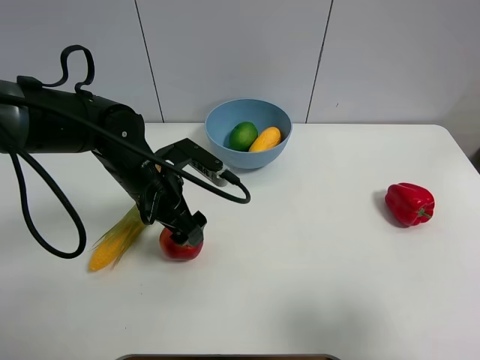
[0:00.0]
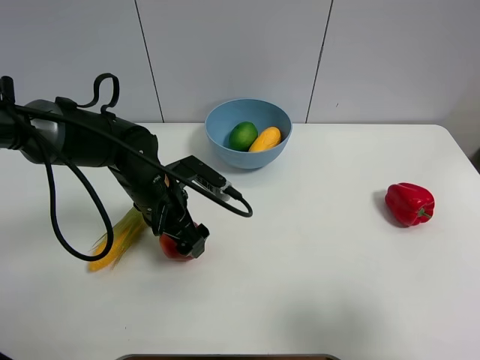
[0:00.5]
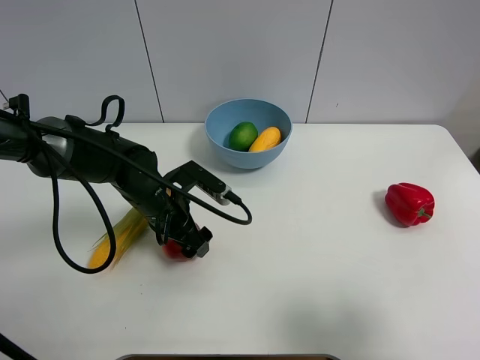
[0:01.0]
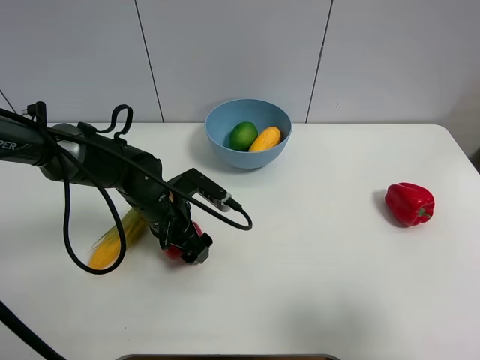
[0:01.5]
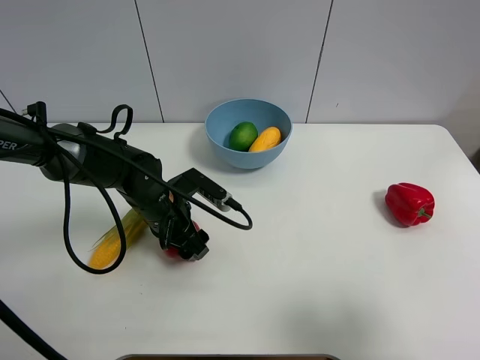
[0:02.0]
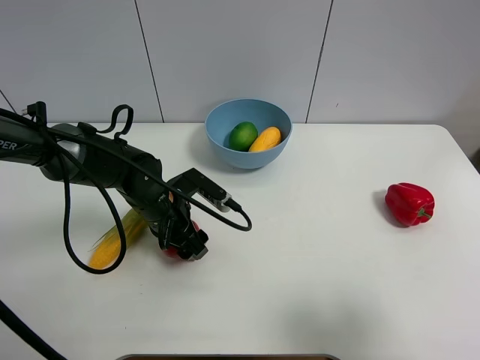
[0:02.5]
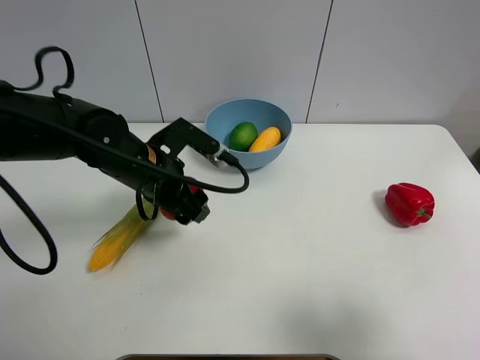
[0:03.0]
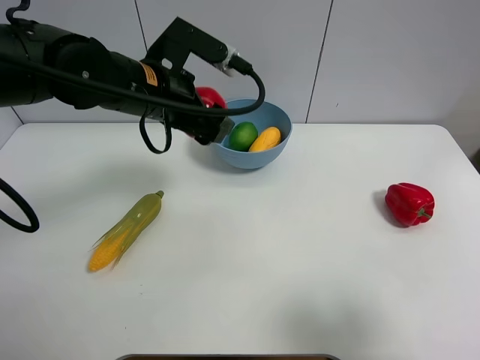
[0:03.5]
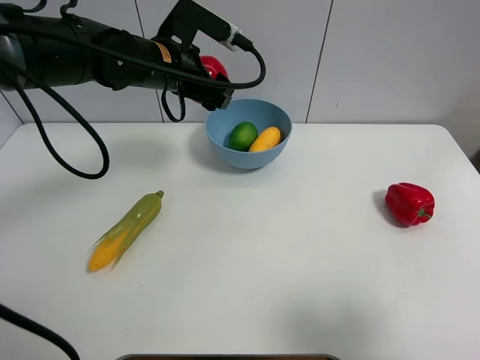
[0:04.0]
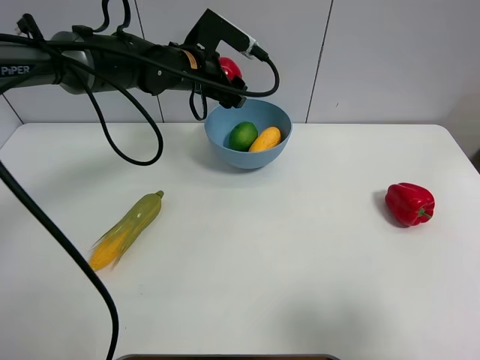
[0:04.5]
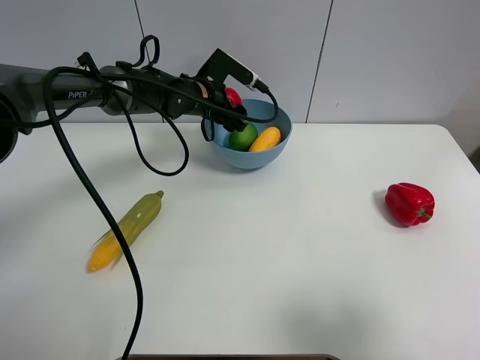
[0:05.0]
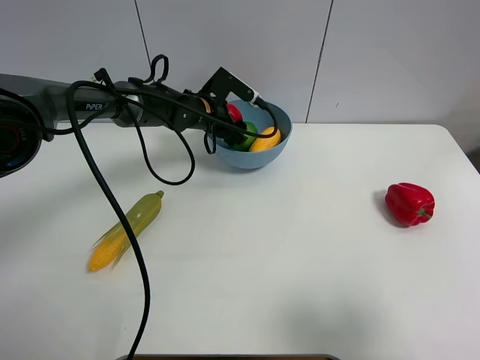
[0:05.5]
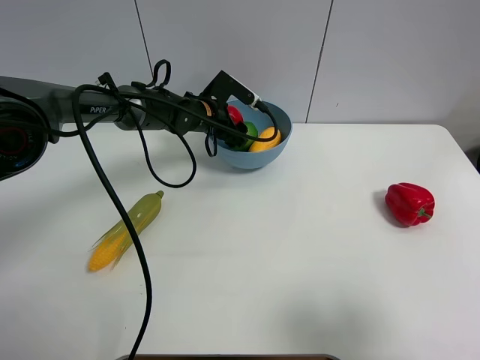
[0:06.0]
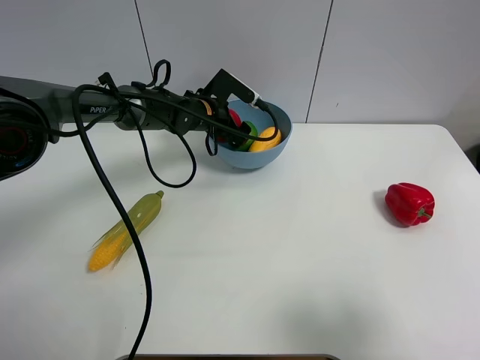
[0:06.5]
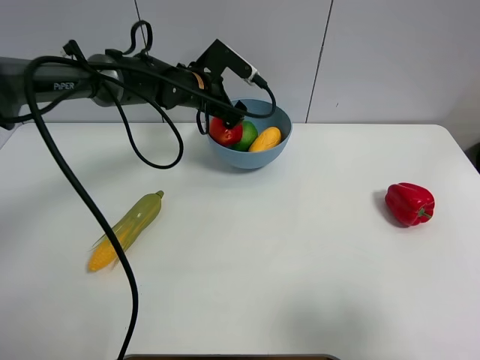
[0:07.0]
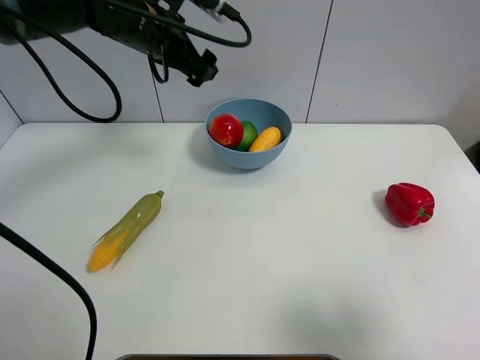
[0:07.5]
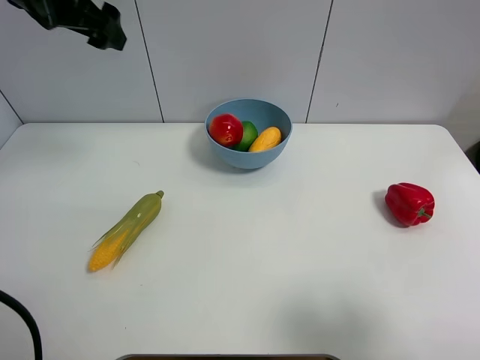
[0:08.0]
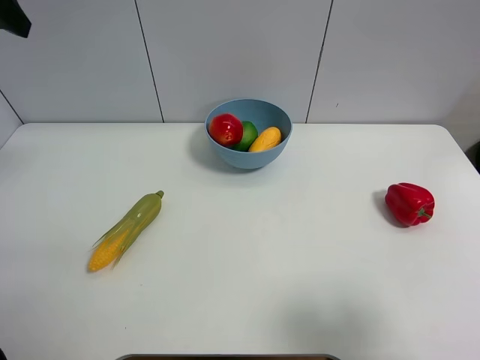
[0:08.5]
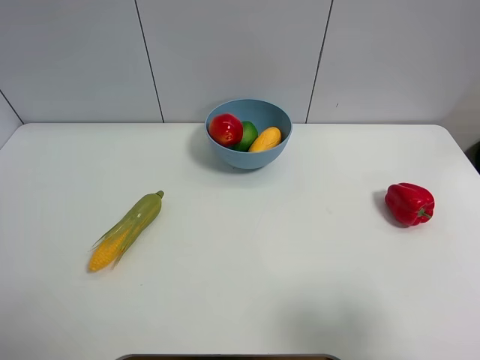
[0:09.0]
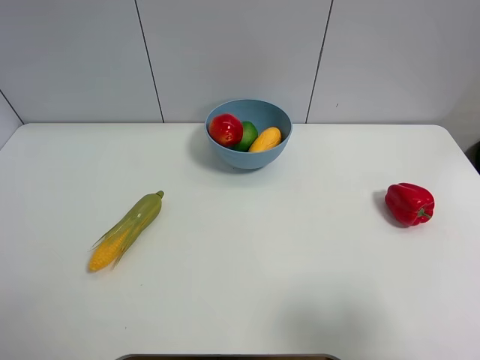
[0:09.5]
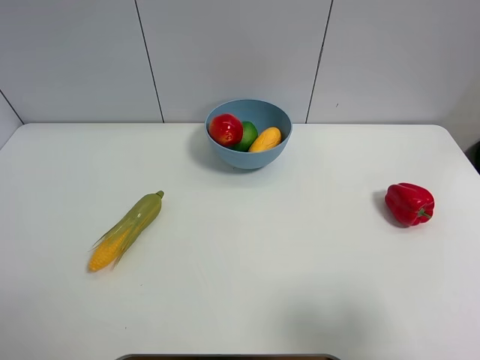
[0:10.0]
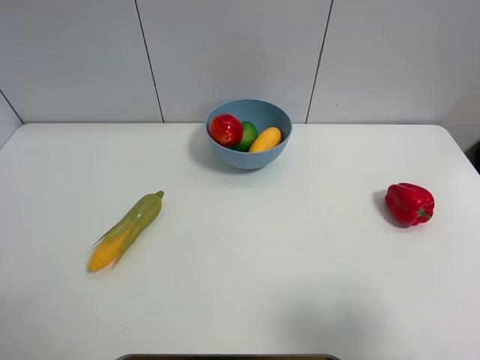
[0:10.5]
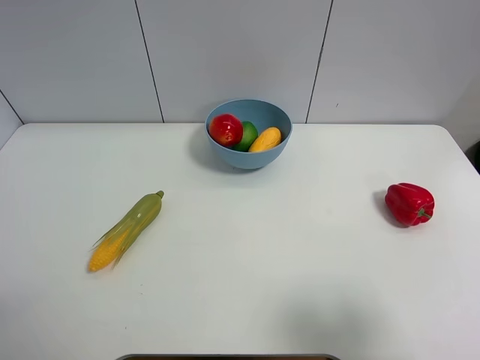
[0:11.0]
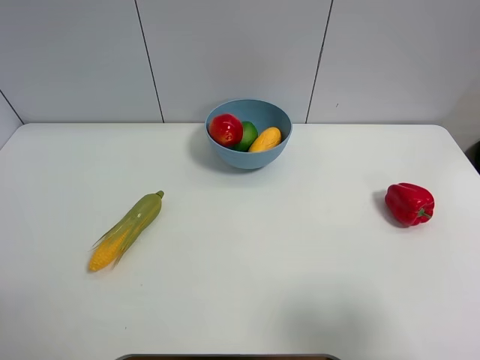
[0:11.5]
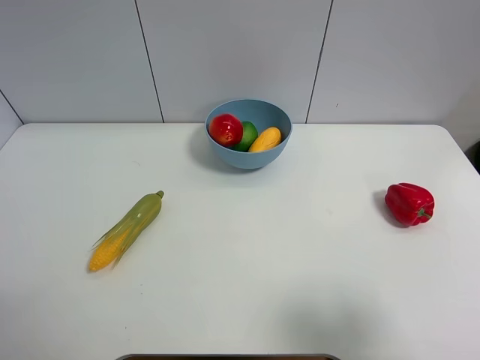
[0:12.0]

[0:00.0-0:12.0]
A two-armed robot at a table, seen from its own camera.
Task of the whole recording: Put the three fruits on the table into a bowl.
Step, 0:02.0 to 0:06.5: Place the pomegranate in the blue bowl with left gripper.
0:00.0 to 0:02.0: The left gripper shifts roughly 5 cm downward, and closes up.
0:02.0 to 0:04.0: The left gripper is displaced upward and forward by about 20 cm.
0:04.0 to 0:06.0: The left gripper shifts some 15 cm downward and forward.
0:06.0 to 0:08.0: The left gripper is displaced upward and to the left by some 30 cm, and opens.
0:08.0 to 0:10.0: The left gripper is displaced backward by approximately 35 cm.

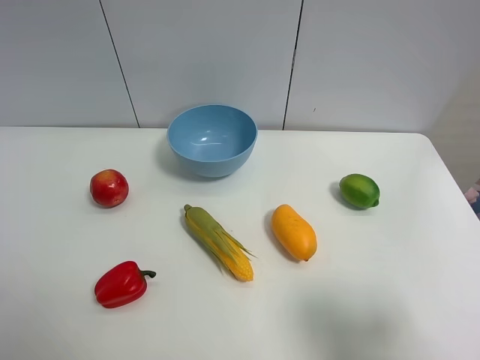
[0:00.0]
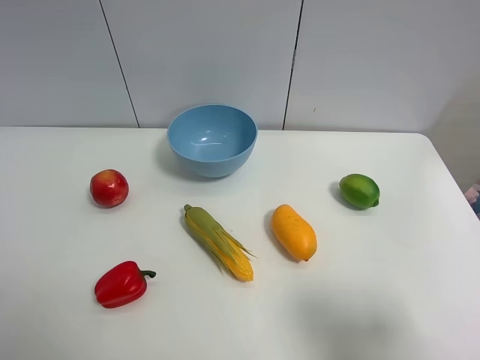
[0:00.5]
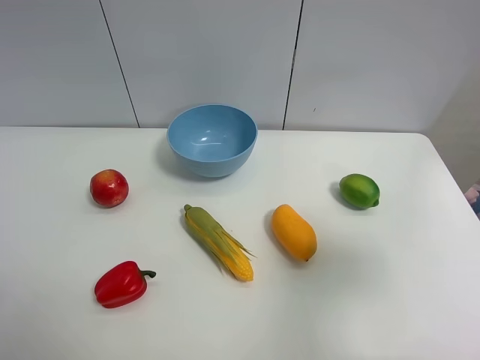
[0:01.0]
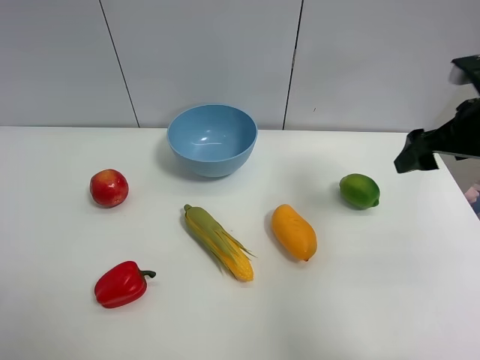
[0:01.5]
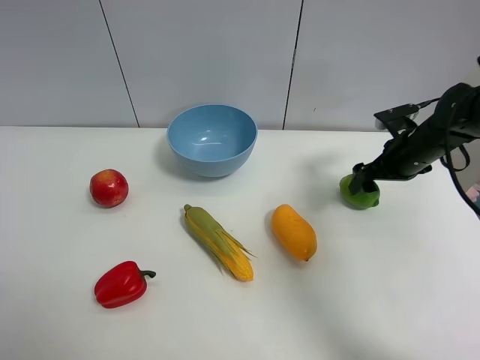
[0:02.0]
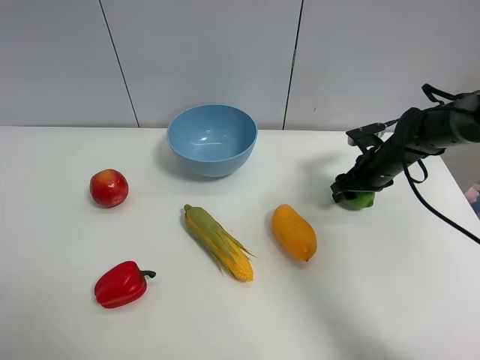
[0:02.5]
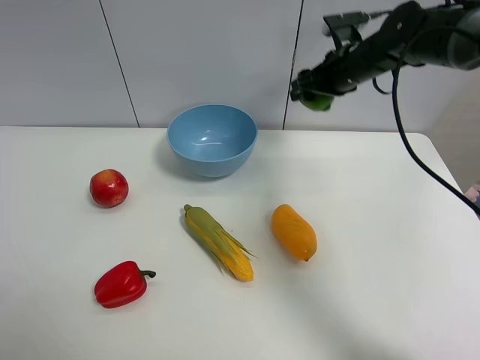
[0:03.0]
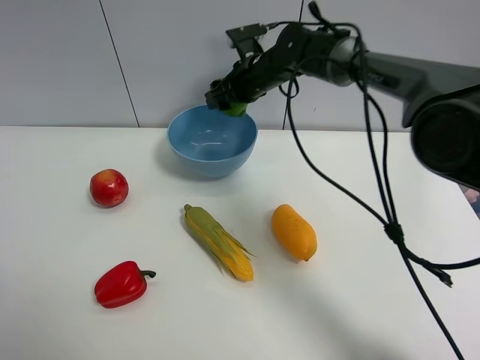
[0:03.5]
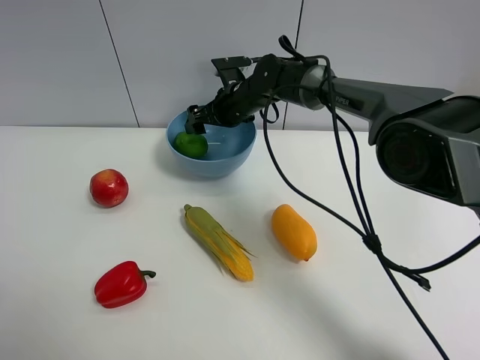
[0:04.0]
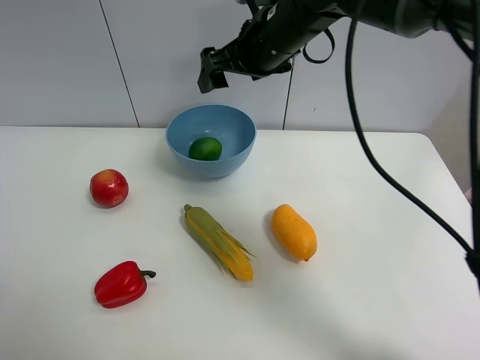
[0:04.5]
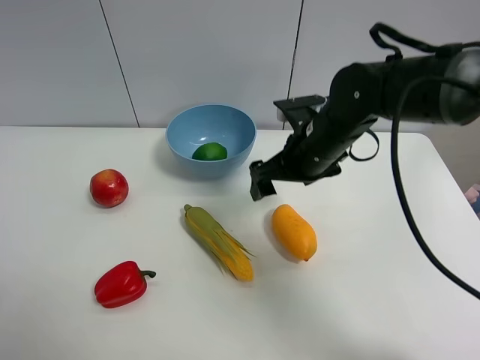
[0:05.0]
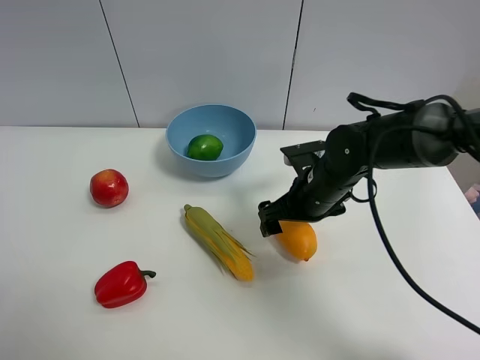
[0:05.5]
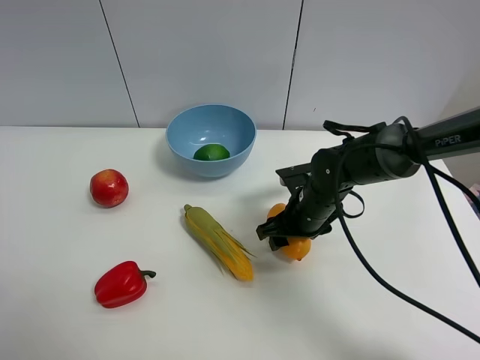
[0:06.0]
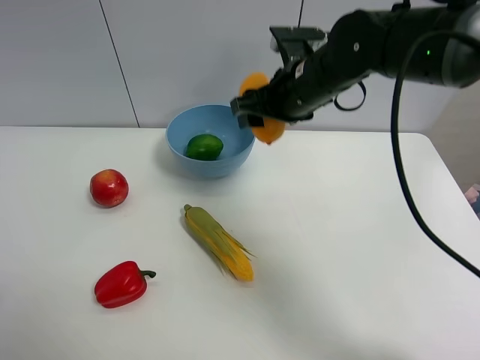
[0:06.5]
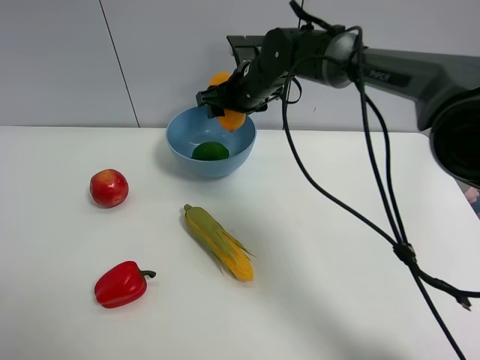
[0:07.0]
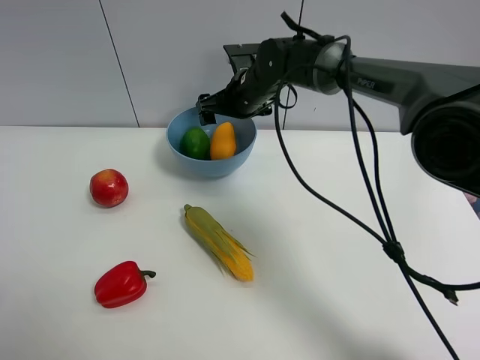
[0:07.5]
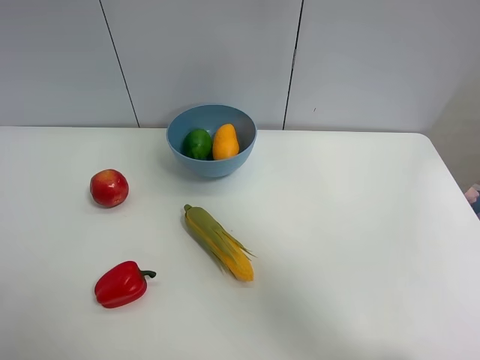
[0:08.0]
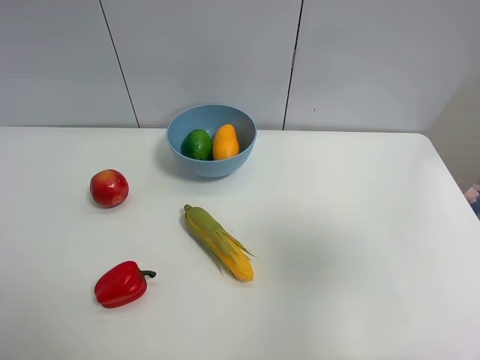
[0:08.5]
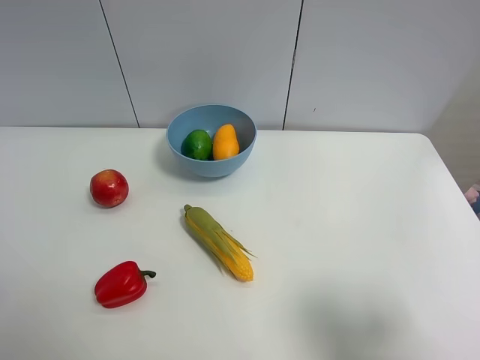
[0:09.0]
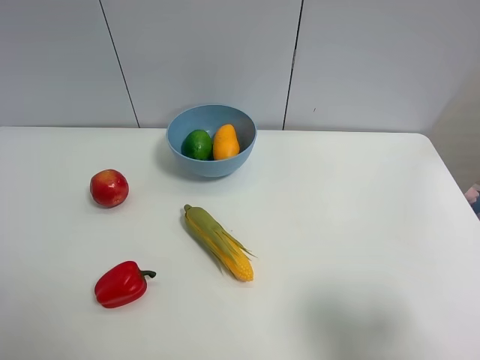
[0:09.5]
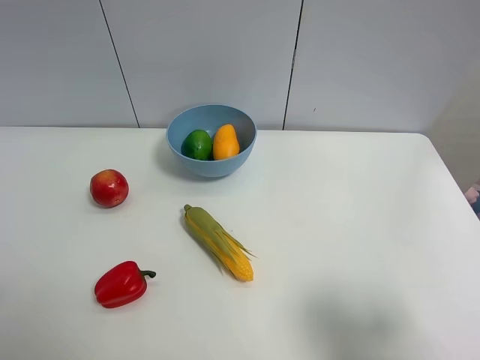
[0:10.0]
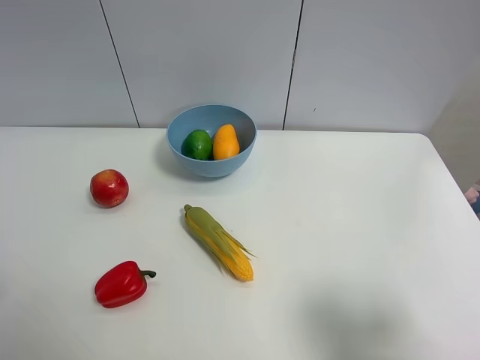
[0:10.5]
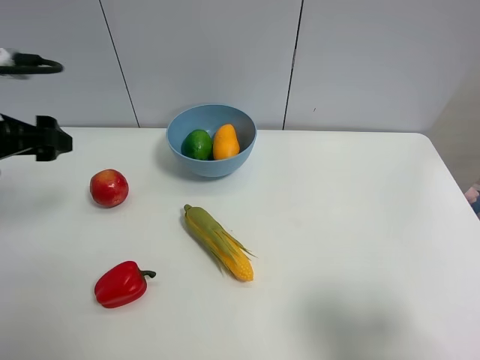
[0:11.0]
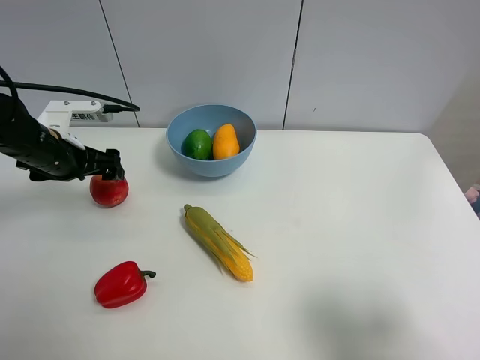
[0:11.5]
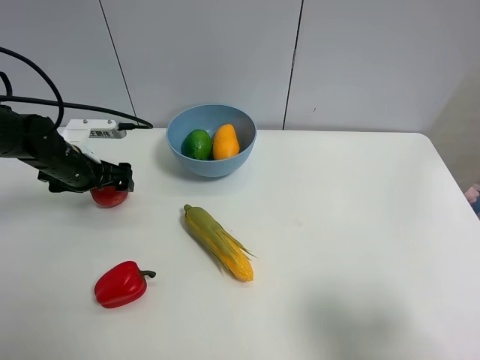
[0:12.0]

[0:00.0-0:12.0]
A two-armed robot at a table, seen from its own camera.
Task of the whole recording: Put the three fruits on the table into a bowl.
Step, 0:00.0 to 0:02.0: Grasp the green lemon with right gripper.
Step, 0:02.5 to 0:04.0: Place the green lemon in the blue bowl with right gripper.
Step, 0:04.5 to 0:06.0: Grasp the mango with right gripper.
Step, 0:06.5 to 0:07.5: Place the mango in the blue bowl with right gripper.
0:00.0 to 0:02.0: The right gripper goes approximately 35 cm forward.
0:02.0 to 0:04.0: The right gripper moves to the left and forward, approximately 30 cm, and closes and opens again.
0:04.0 to 0:06.0: The right gripper goes approximately 20 cm backward, to the right and downward, and closes.
0:06.0 to 0:08.0: The right gripper moves up and down over roughly 40 cm, changing direction 2 times, and opens up.
0:08.0 to 0:10.0: The right gripper shifts some 40 cm backward, downward and to the right.
0:10.0 to 0:12.0: The left gripper shifts some 40 cm forward and downward.

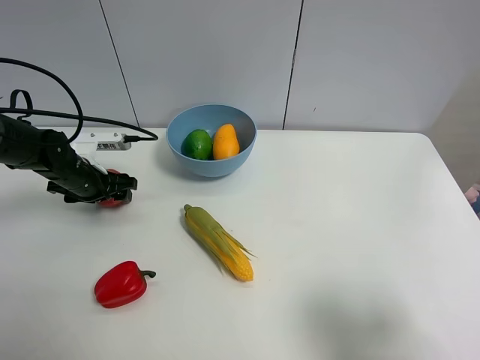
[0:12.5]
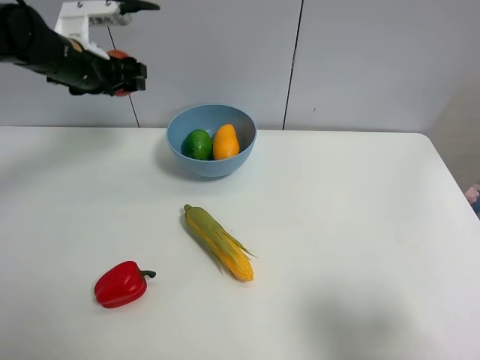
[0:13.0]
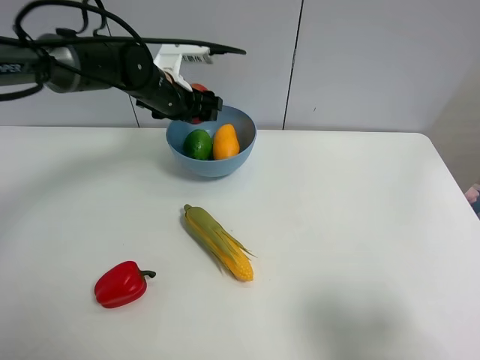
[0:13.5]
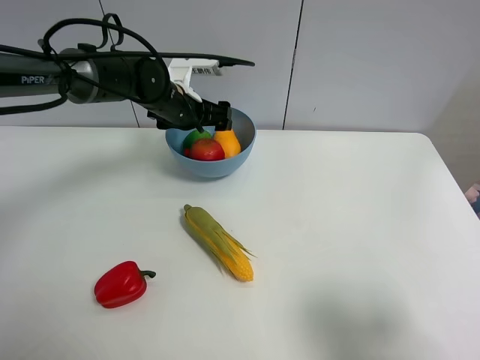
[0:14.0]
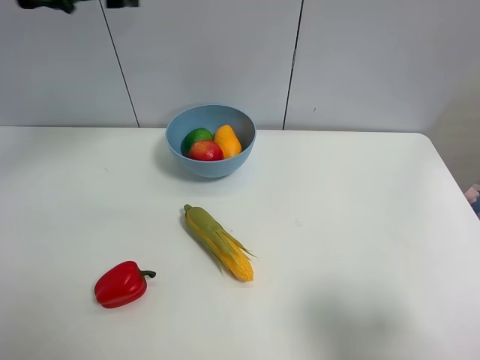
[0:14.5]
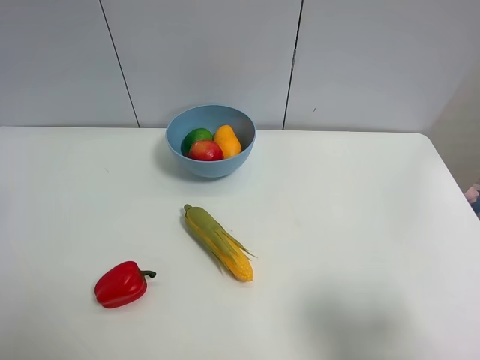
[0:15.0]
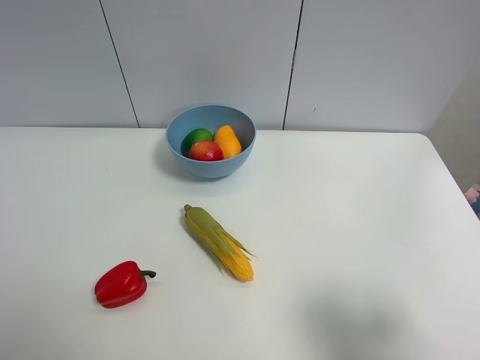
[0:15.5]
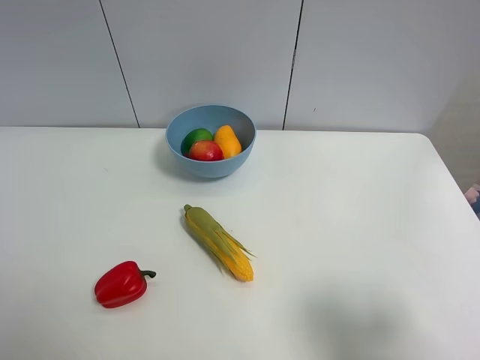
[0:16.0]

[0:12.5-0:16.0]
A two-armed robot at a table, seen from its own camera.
Task of the whole recording: Put the three fruits on the table into a bowl.
Step, 0:13.0 to 0:14.0: Place the pomegranate in the blue bowl with left gripper.
0:12.5 to 0:14.5: The left gripper swings up and down, about 30 cm each way, with 2 reversals, and opens up.
0:14.5 to 0:16.0: The left gripper shifts roughly 35 cm backward.
